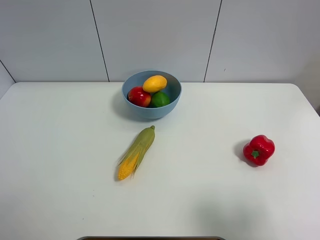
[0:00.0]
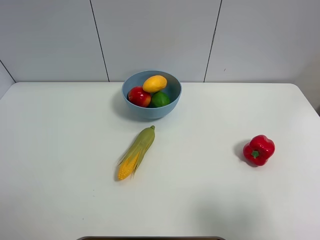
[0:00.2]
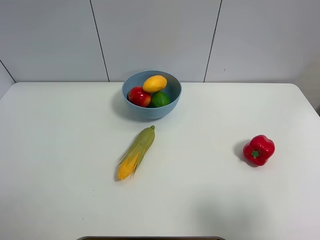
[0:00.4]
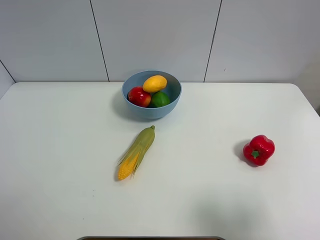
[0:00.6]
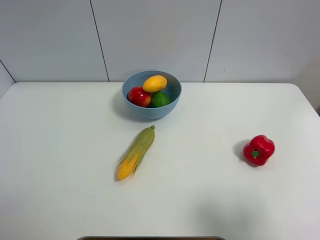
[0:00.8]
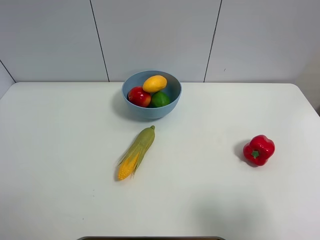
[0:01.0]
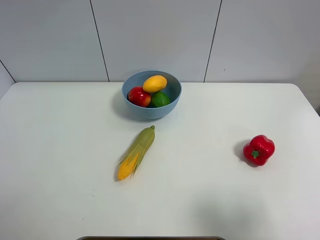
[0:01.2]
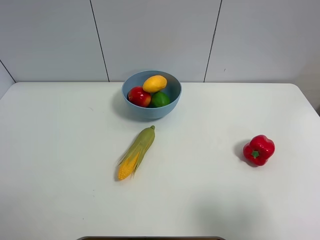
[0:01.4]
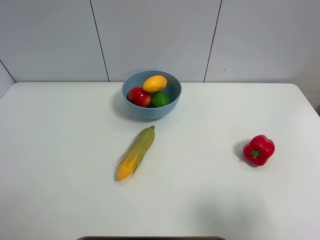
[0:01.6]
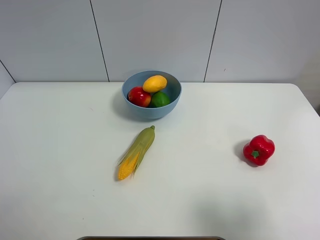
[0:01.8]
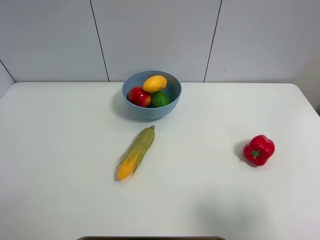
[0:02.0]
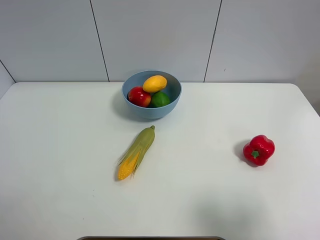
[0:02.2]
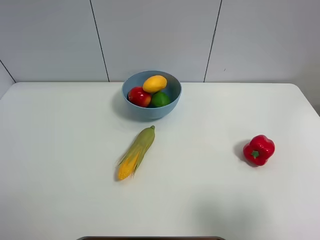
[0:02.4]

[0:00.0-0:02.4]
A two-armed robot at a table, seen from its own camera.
Task of the whole recording: Put the three fruits on the table into a bowl.
0:01.2 to 0:02.4: The two grippers keep their place.

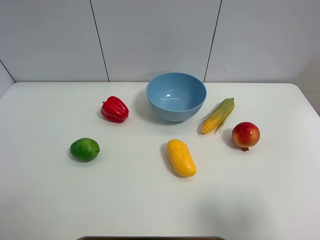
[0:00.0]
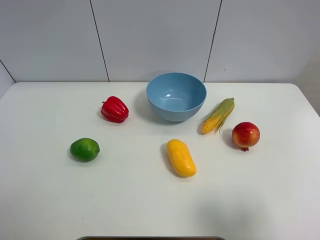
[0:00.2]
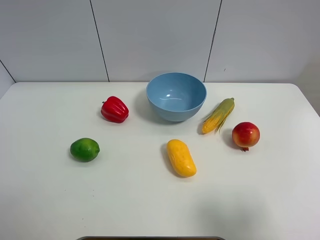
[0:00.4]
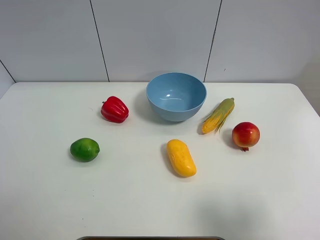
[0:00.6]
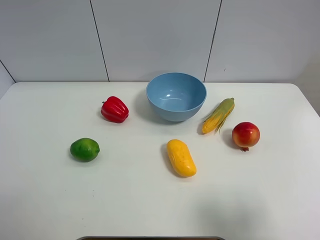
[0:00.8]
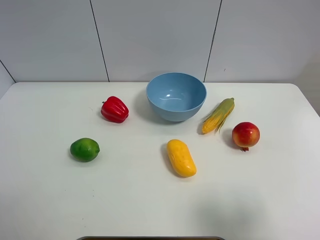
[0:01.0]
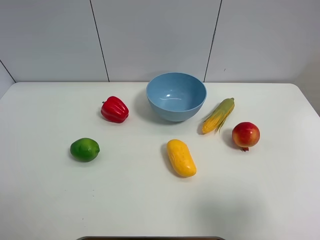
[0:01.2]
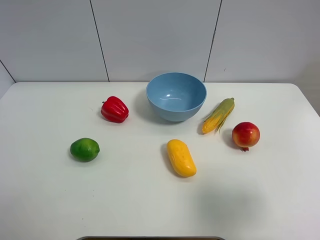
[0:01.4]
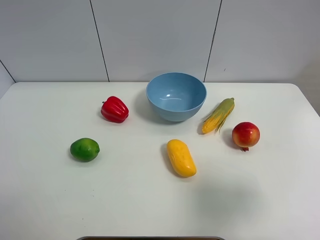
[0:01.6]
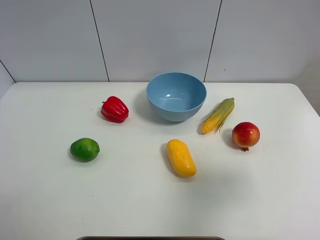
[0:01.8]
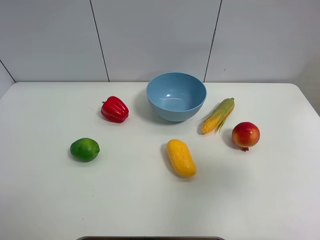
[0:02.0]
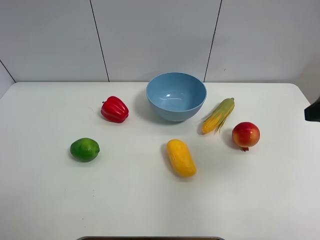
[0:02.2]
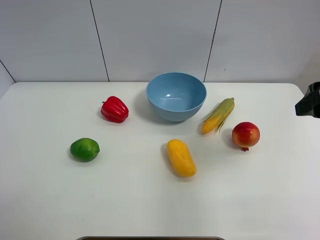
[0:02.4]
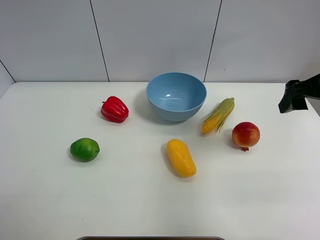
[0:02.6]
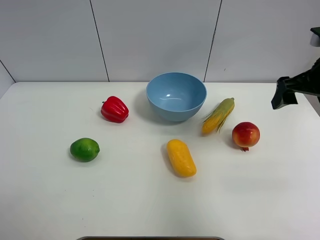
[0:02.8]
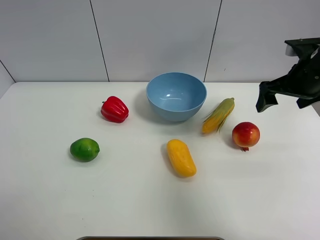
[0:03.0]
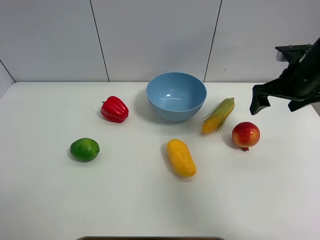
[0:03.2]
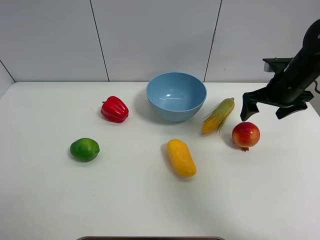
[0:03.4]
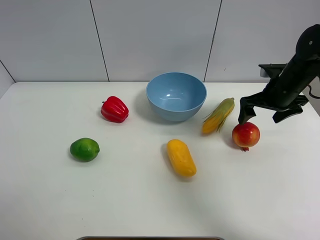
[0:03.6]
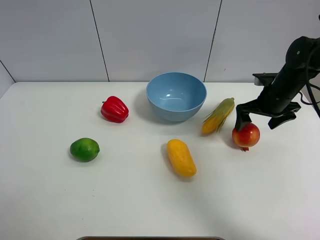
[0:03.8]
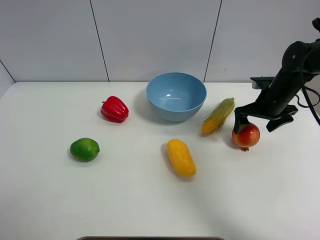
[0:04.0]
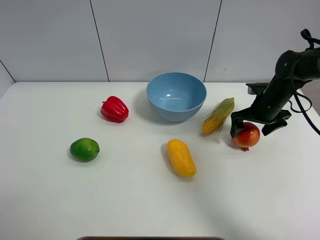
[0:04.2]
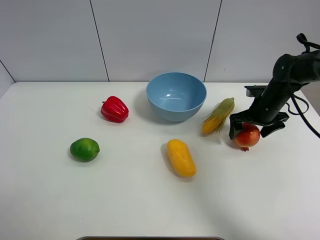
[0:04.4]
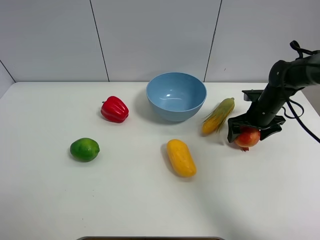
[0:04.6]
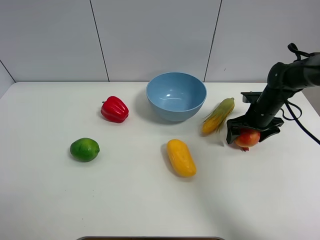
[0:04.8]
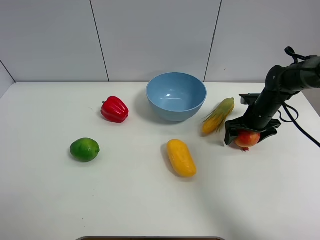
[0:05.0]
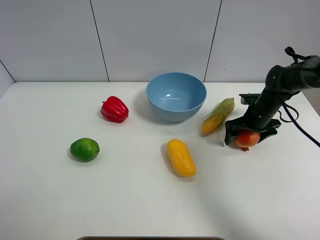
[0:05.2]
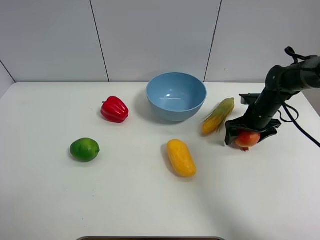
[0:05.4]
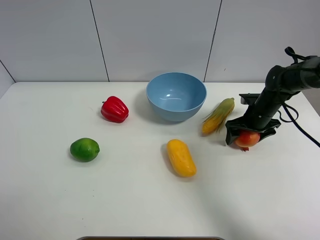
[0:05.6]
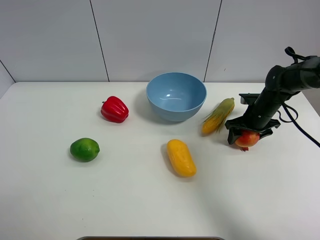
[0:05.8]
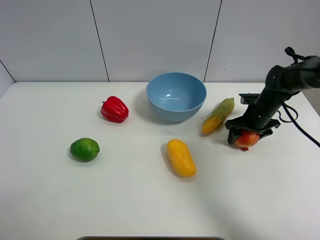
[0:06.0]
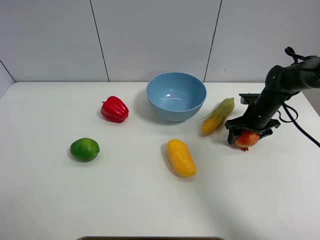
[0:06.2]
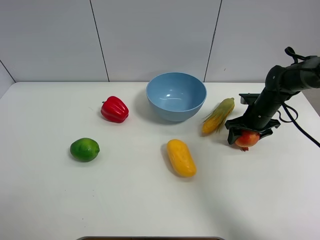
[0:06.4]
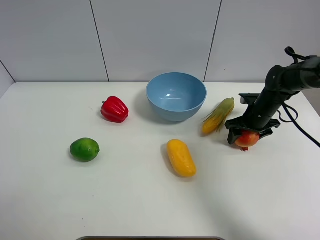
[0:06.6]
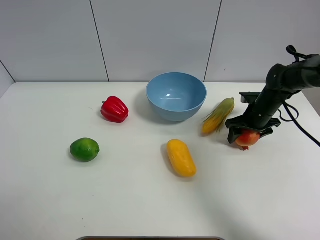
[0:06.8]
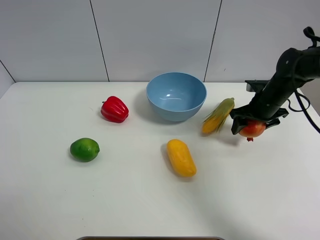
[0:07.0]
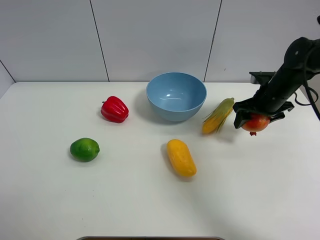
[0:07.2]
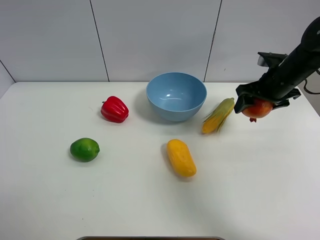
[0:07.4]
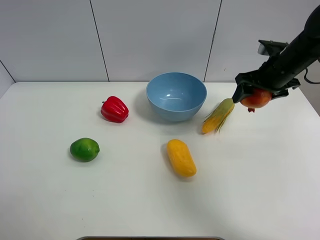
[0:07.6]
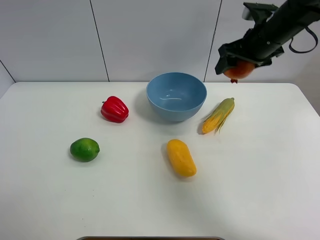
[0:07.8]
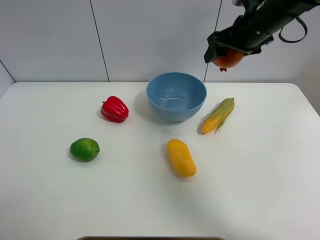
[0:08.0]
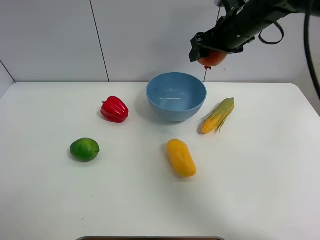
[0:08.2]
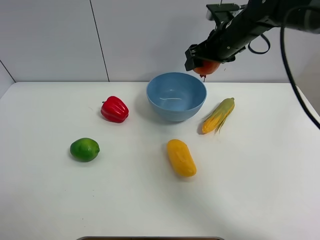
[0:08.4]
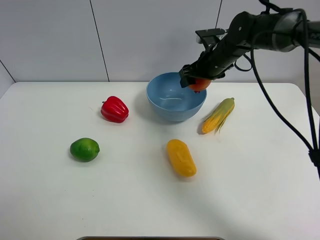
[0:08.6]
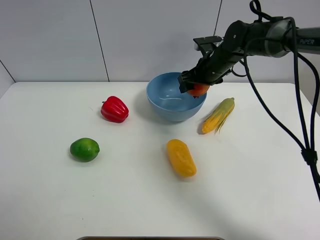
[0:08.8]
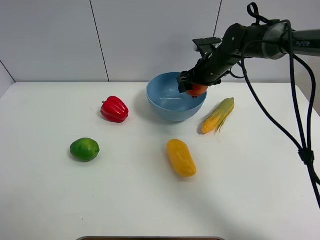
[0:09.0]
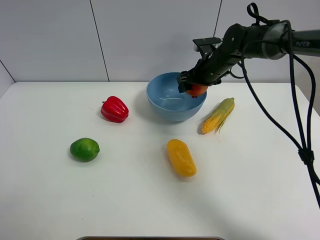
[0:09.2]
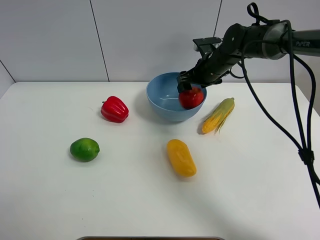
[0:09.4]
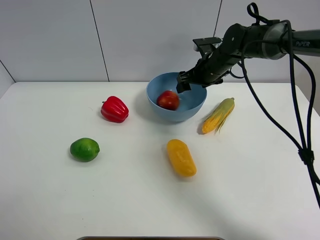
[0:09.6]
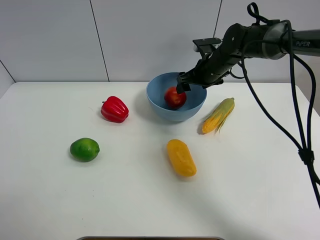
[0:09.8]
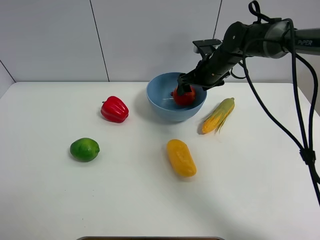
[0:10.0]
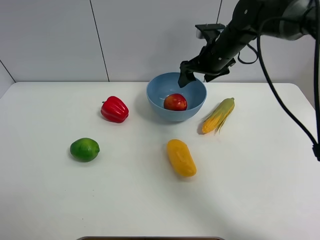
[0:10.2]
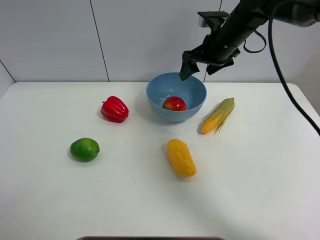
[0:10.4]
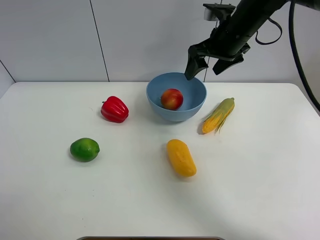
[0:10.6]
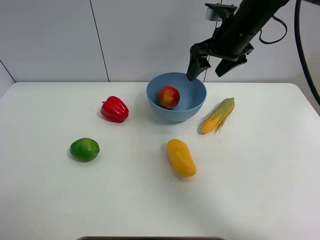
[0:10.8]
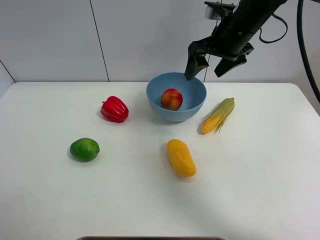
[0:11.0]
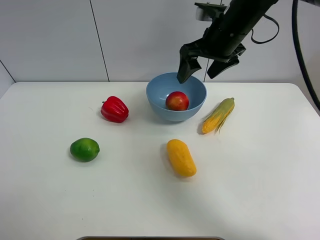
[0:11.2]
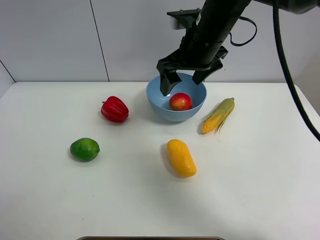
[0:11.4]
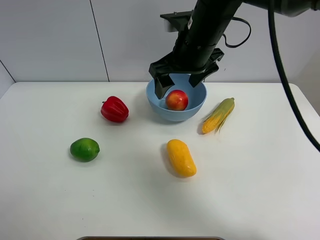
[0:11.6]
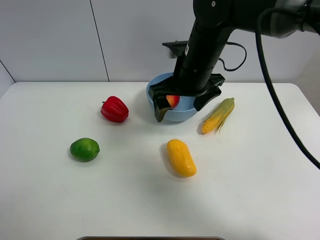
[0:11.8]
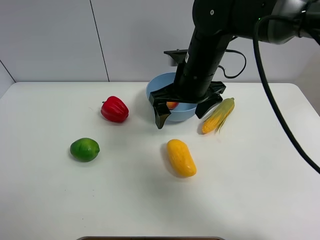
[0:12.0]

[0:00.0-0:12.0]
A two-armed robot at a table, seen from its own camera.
Task of the whole recording: Put the three fruits on the table into a bowl.
Step, 0:00.0 to 0:05.8: Grasp the pomegranate with right gripper.
Step, 0:06.0 to 0:09.6: Place the pomegranate in the blue bowl with right gripper.
0:00.0 to 0:01.6: The right gripper shifts roughly 5 cm forward.
0:01.6 to 0:03.0: The right gripper heads forward, covering approximately 25 cm.
0:03.0 to 0:04.4: The right gripper shifts some 15 cm downward.
0:04.4 to 0:06.0: The right gripper closes its fingers.
0:06.0 to 0:07.6: The right gripper moves upward, some 15 cm.
0:07.6 to 0:09.0: The right gripper heads to the left, forward and downward, covering approximately 15 cm.
0:09.0 to 0:10.4: The right gripper moves upward, some 10 cm, and opens its fingers.
0:10.4 to 0:12.0: The right gripper shifts about 15 cm backward and to the left.

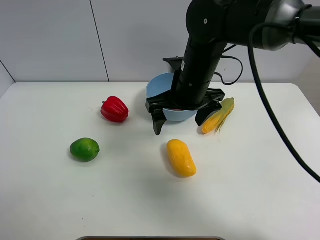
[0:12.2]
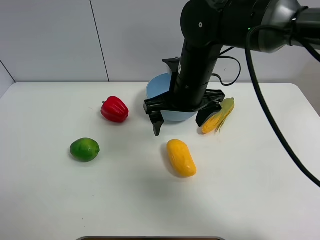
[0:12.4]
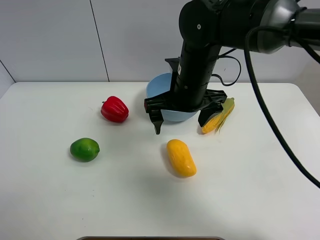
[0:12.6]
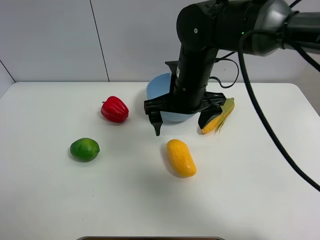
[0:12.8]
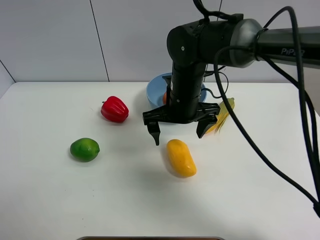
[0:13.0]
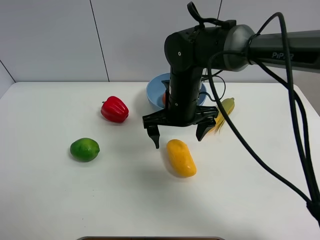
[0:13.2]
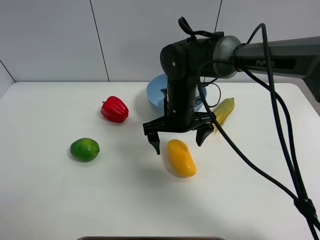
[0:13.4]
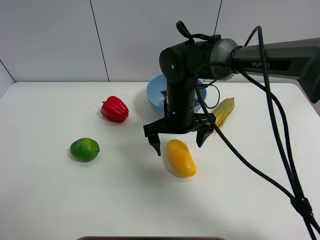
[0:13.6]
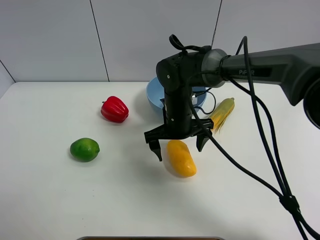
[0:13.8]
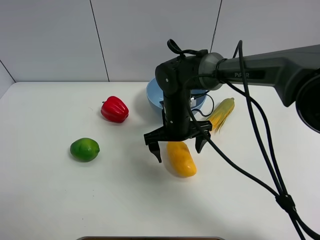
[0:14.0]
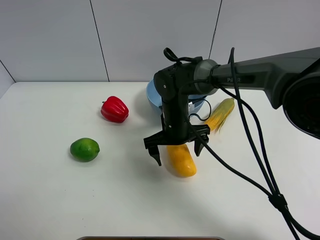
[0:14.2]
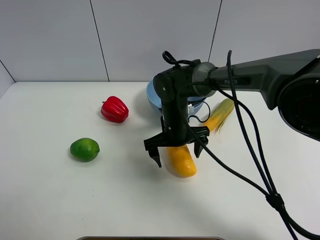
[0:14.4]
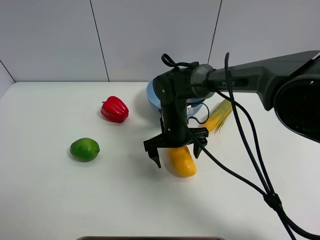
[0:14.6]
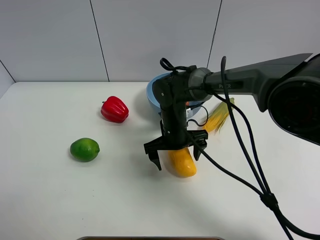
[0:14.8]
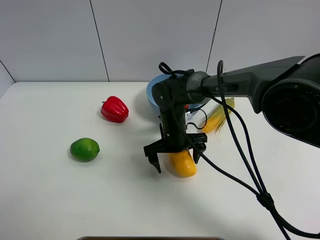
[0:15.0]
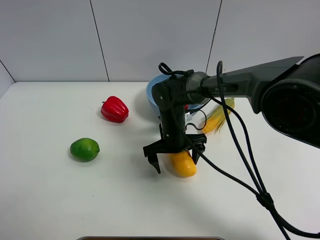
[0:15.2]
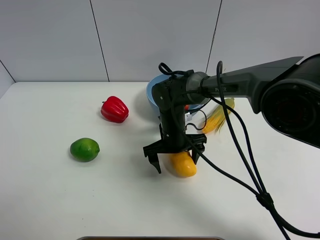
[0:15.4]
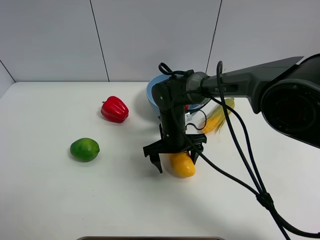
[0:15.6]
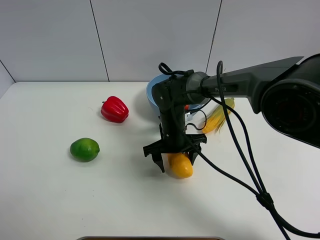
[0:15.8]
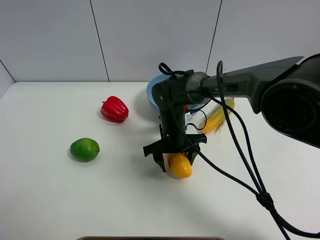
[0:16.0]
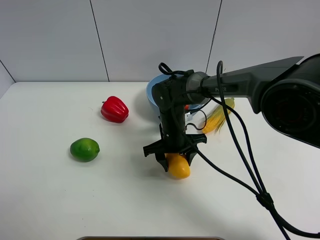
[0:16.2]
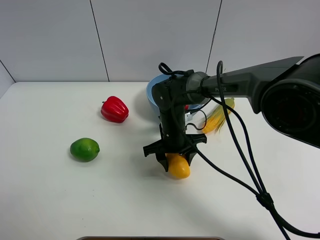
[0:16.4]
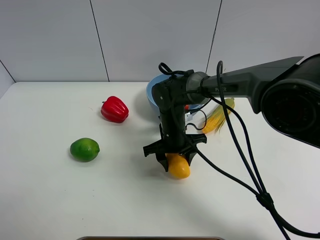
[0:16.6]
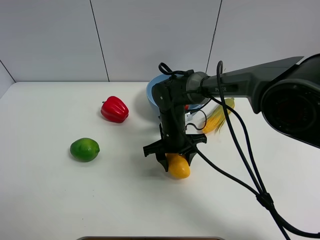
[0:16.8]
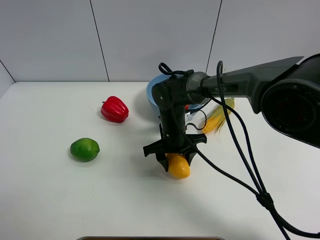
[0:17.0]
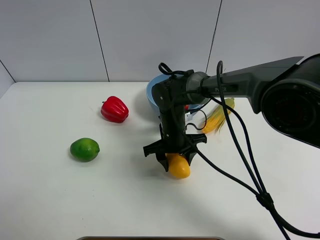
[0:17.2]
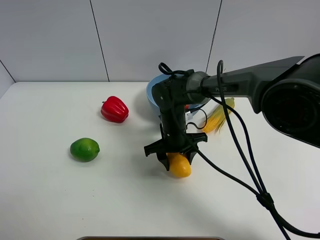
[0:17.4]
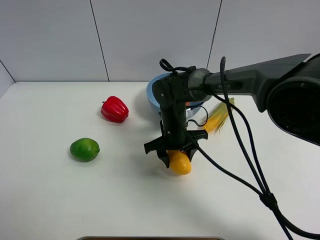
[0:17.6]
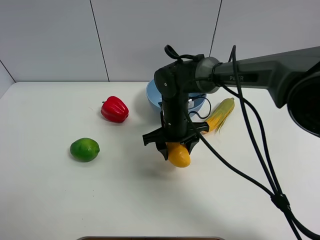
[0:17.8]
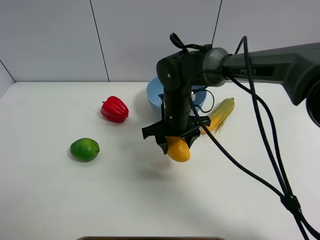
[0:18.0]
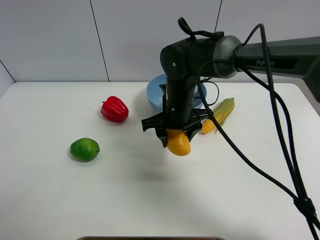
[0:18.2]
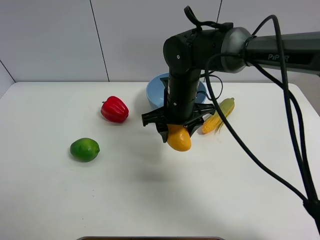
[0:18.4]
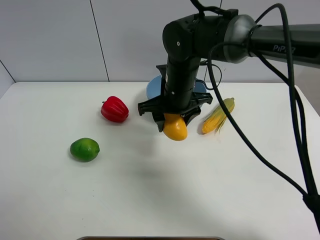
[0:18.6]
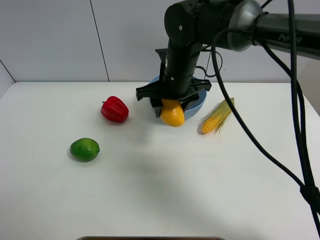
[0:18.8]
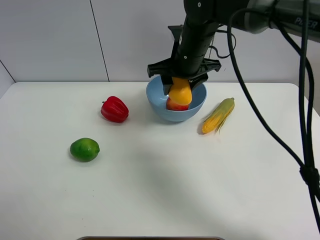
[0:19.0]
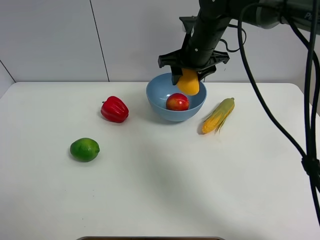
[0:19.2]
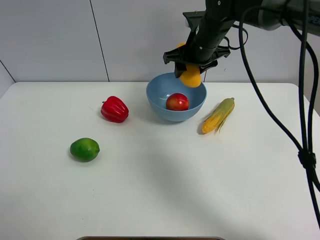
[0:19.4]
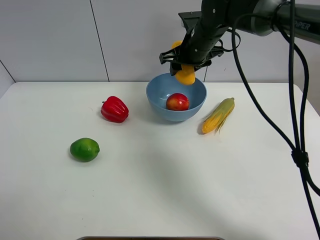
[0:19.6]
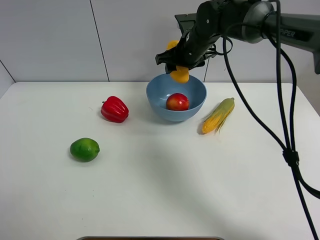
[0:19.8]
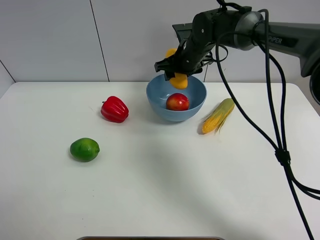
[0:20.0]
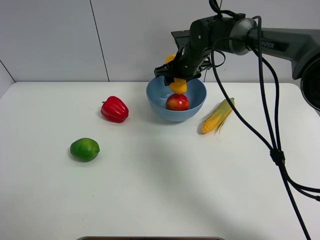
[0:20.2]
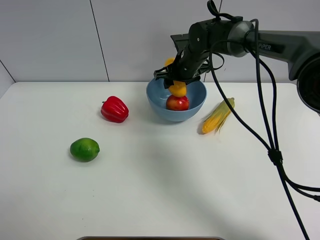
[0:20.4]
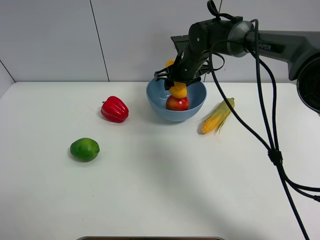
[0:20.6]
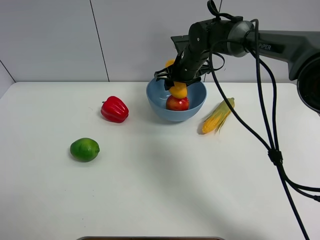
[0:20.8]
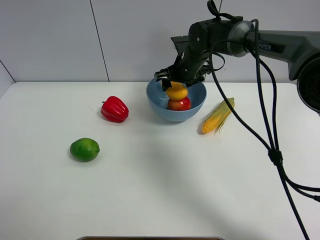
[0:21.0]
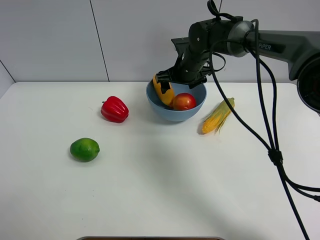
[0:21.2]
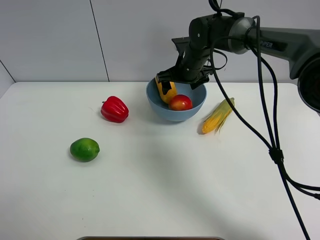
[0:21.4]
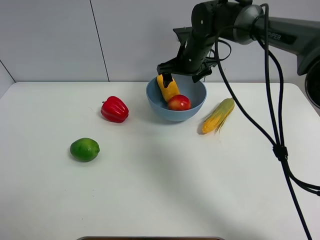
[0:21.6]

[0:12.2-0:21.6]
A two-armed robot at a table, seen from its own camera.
Task of the whole recording: Put the three fruits on the table into a bowl.
Step, 0:12.2 to 0:16.2: Grasp the mango with right gripper.
Step, 0:16.4 to 0:21.2: Place the mango in the blue bowl with right gripper.
0:12.2 to 0:13.8: The right gripper moves downward, roughly 10 cm.
0:13.8 to 0:15.4: The right gripper heads downward, covering roughly 5 cm.
0:15.4 to 0:17.0: The right gripper closes its fingers.
0:17.0 to 0:18.4: The right gripper travels upward by about 10 cm.
0:18.4 to 0:20.0: The right gripper heads forward, covering approximately 15 cm.
0:20.0 to 0:21.6: The right gripper opens.
